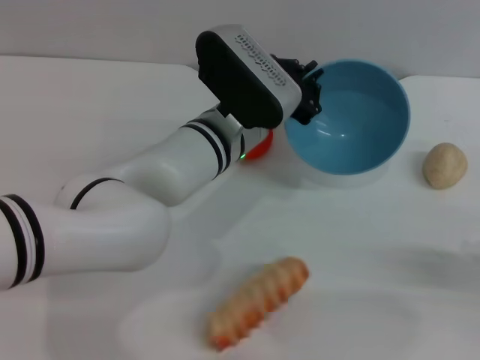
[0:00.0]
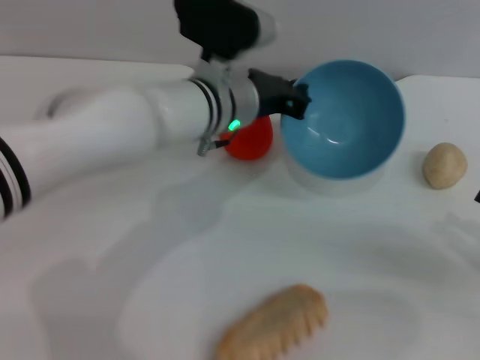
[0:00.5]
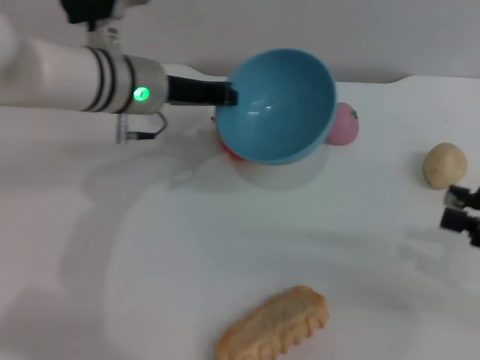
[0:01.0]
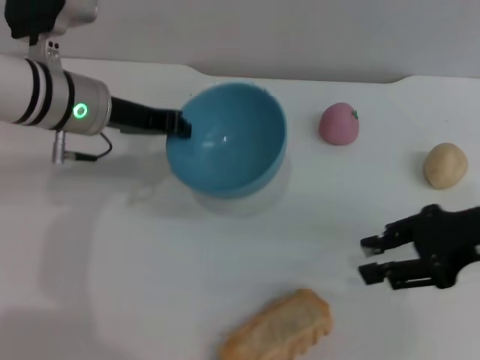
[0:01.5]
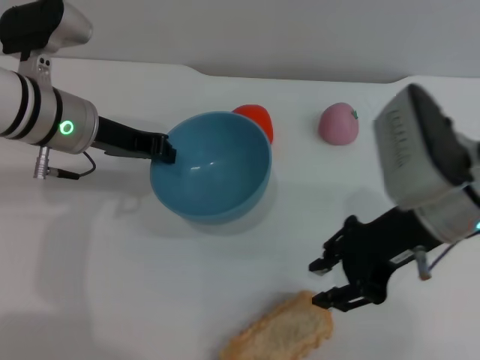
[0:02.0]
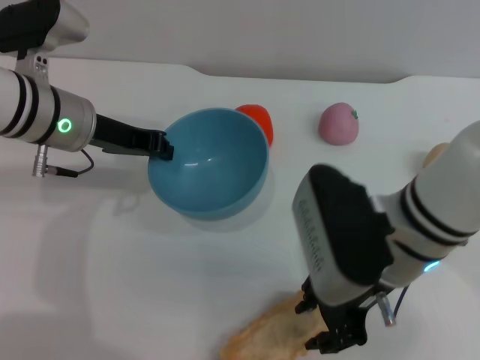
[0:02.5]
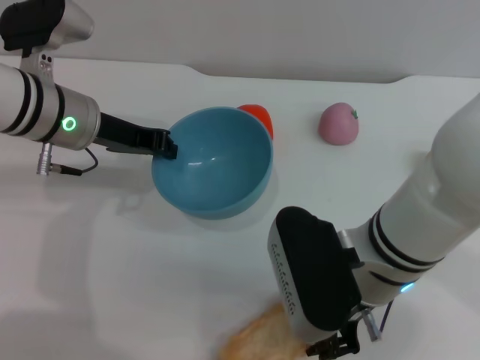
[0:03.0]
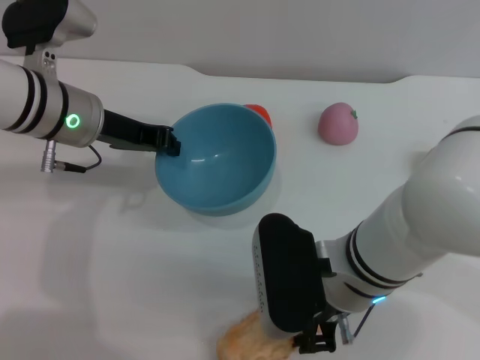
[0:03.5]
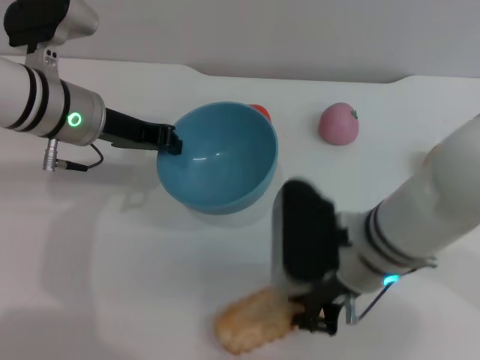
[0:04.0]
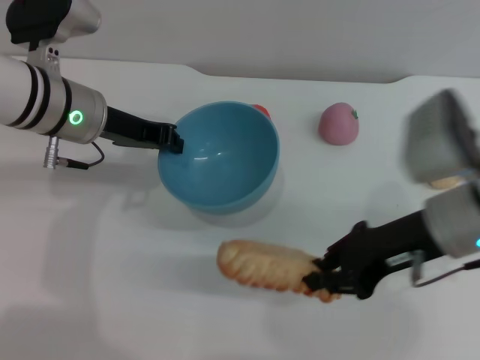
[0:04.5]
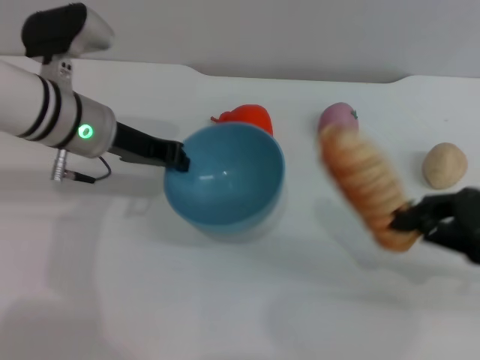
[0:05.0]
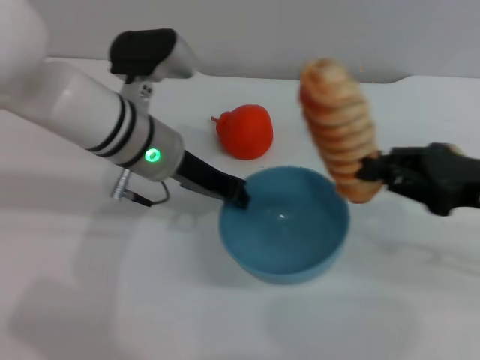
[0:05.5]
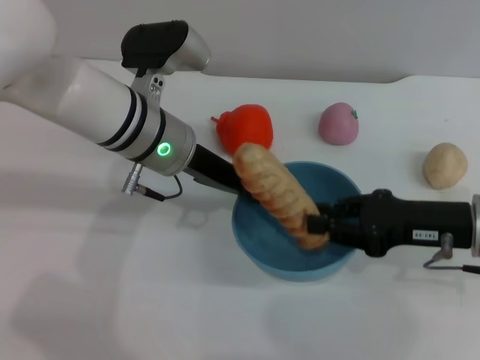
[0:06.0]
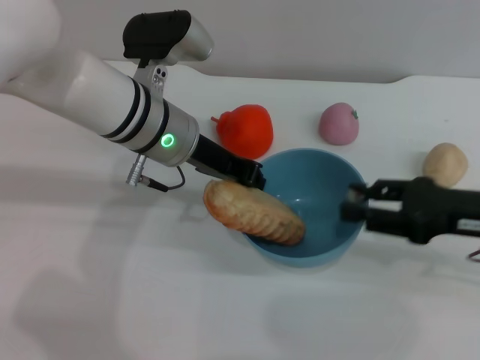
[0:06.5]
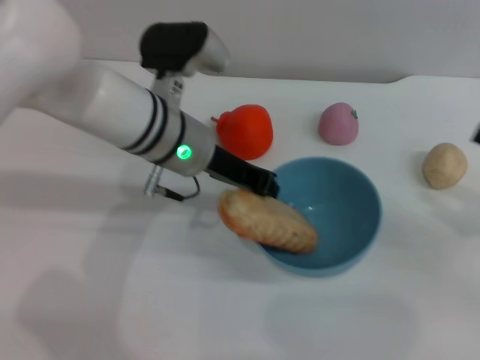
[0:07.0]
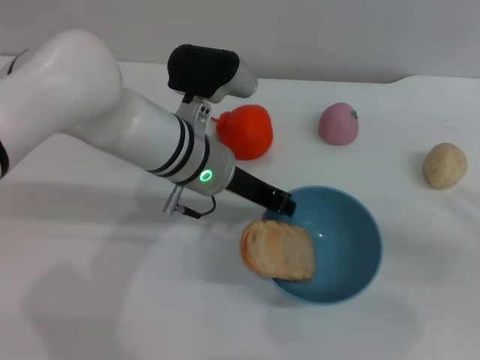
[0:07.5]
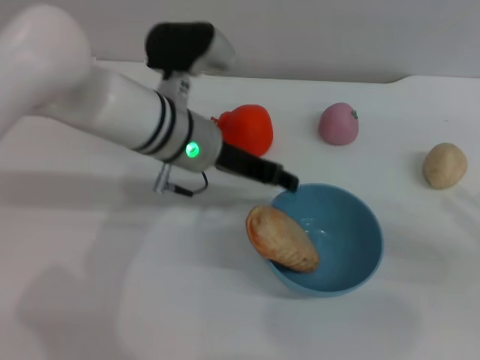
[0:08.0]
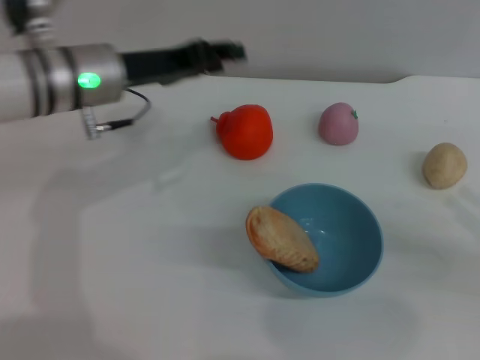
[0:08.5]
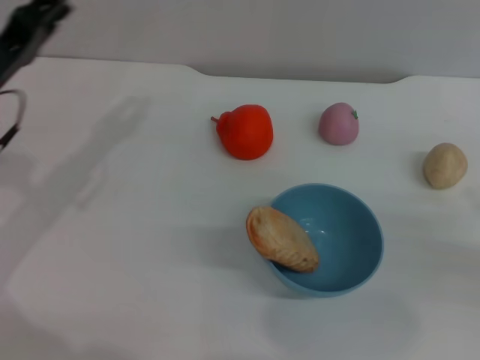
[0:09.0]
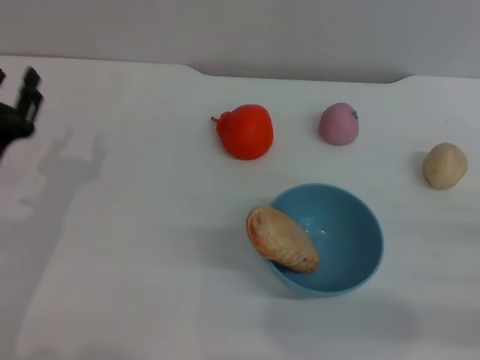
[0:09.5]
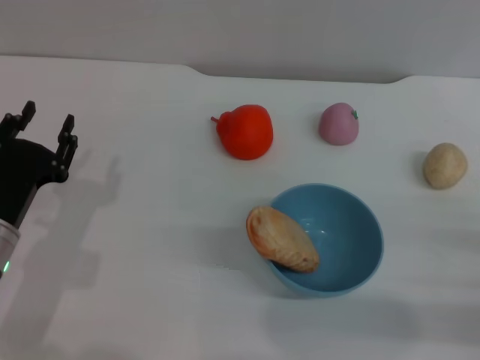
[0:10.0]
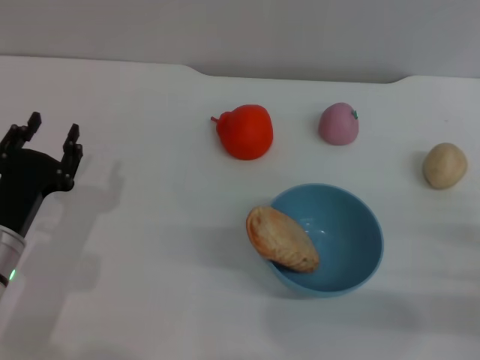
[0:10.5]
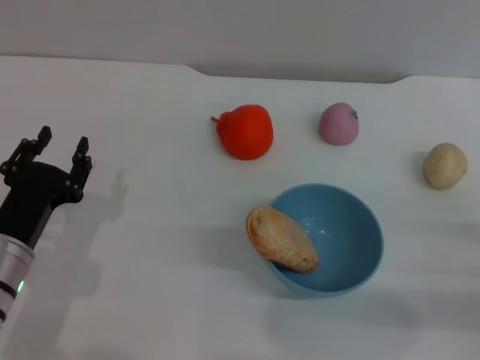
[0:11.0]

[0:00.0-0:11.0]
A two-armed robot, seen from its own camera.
Task of the whole recording: put the bread into the blue bowl and pour it out repeatedly.
Step, 0:00.0 to 0:04.0: Pick up the bread with the right gripper.
Step, 0:05.0 to 0:06.0: Place the bread into the bowl.
Step, 0:06.5 to 0:08.0: Place the bowl on the table.
0:00.0 to 0:02.0: The left gripper shifts approximately 15 cm to the left; the right gripper moves to the left and forward, roughly 25 cm.
0:02.0 to 0:03.5: The right gripper goes some 10 cm to the left and downward.
0:03.5 to 0:05.5: The left gripper shifts some 10 cm to the right; the right gripper heads to the right, covering roughly 20 cm, and closes its fingers.
0:05.5 to 0:07.5: The right gripper shifts approximately 10 cm to the right and backward, and opens up. The left gripper changes place by approximately 5 cm.
0:07.5 to 0:09.0: The left gripper is displaced to the left by about 20 cm, and opens.
0:09.0 to 0:11.0: The left gripper moves downward and backward, approximately 15 cm.

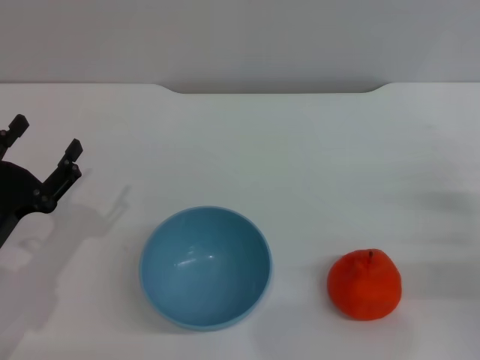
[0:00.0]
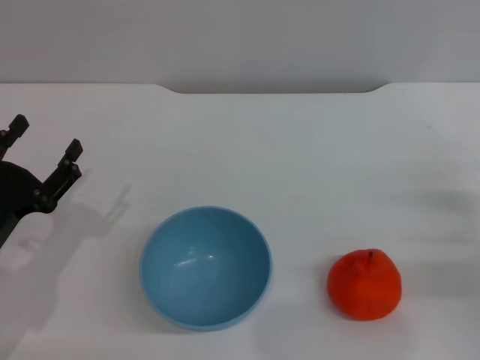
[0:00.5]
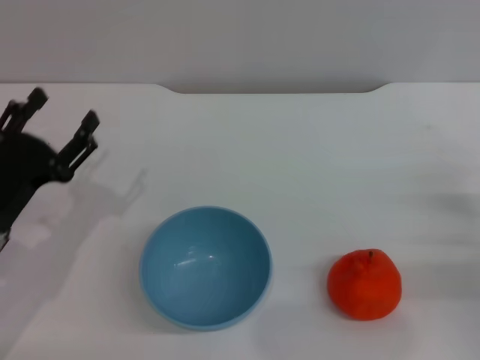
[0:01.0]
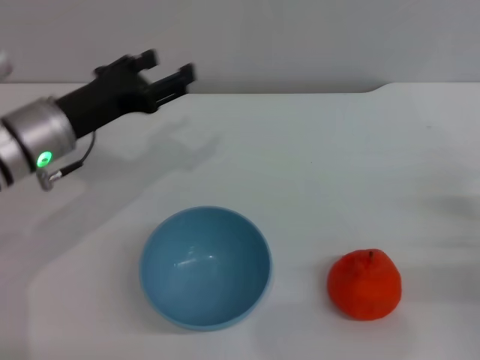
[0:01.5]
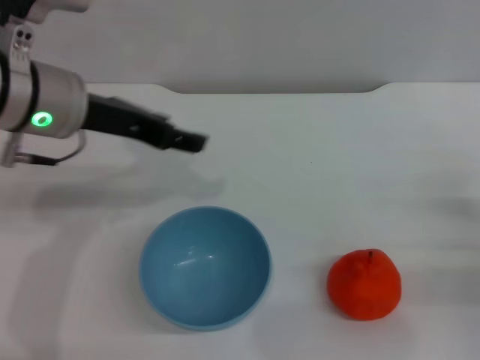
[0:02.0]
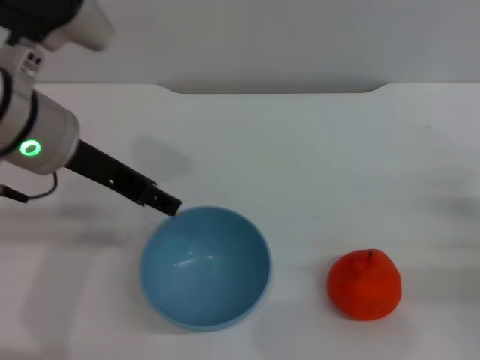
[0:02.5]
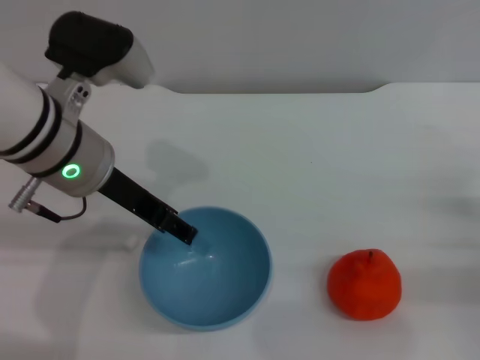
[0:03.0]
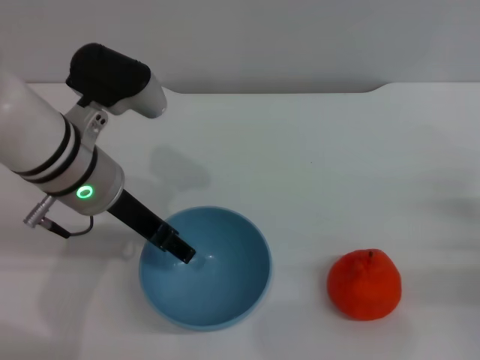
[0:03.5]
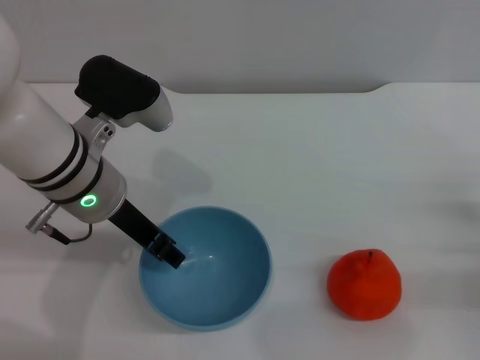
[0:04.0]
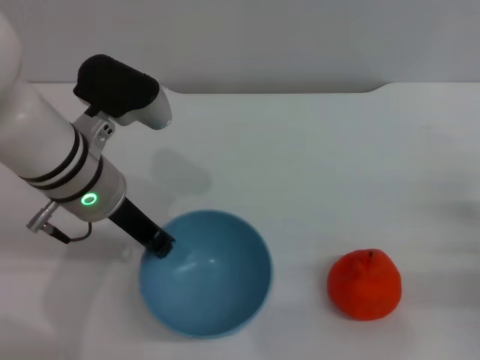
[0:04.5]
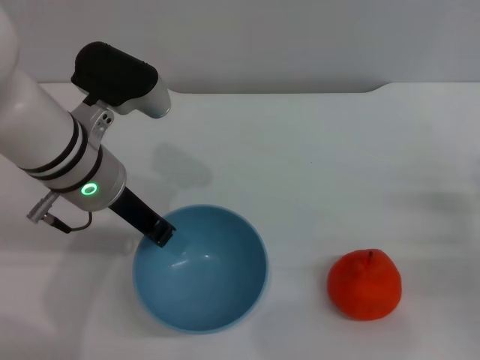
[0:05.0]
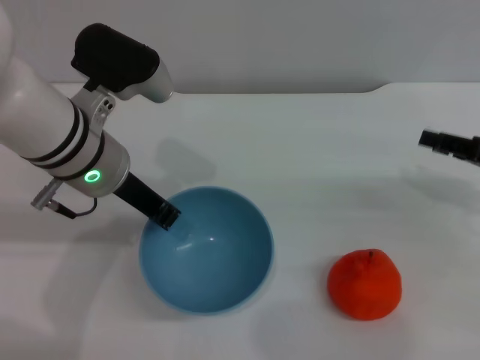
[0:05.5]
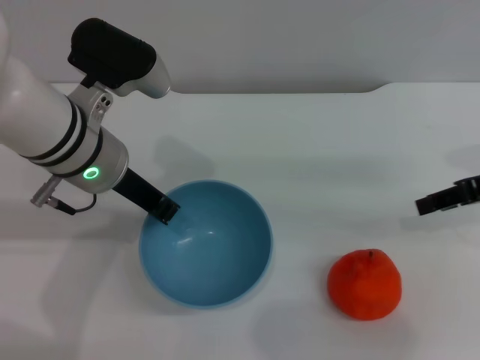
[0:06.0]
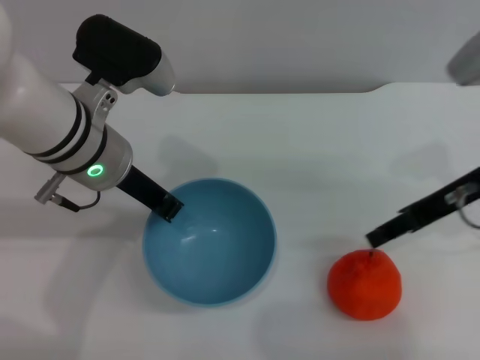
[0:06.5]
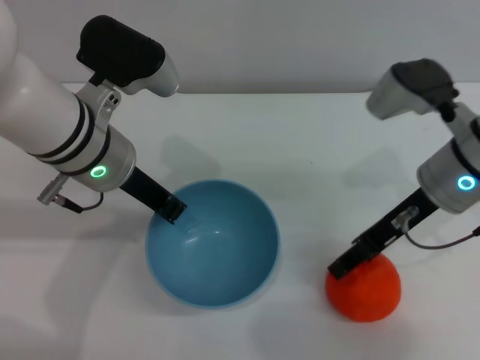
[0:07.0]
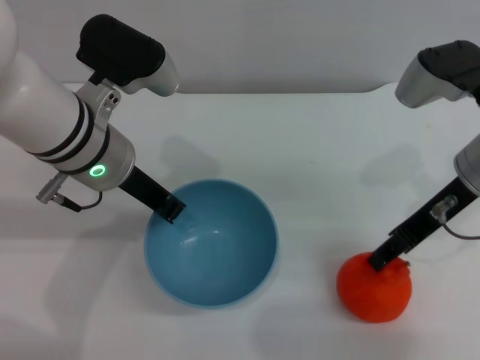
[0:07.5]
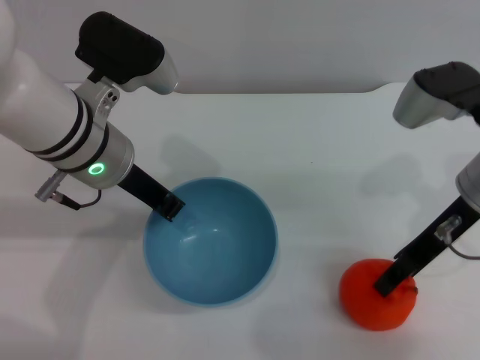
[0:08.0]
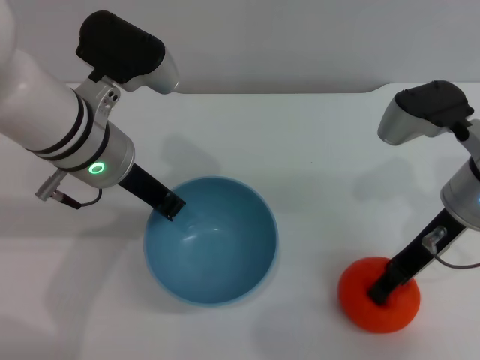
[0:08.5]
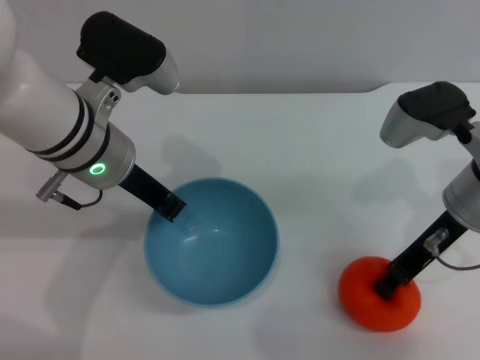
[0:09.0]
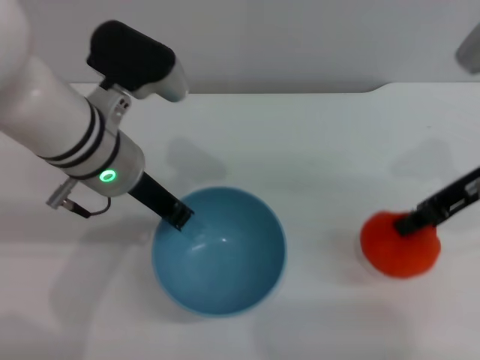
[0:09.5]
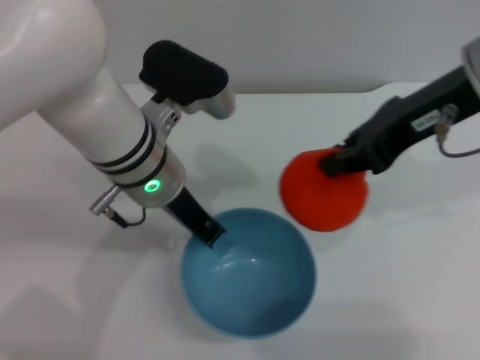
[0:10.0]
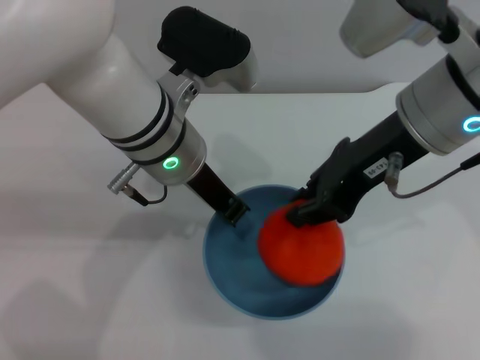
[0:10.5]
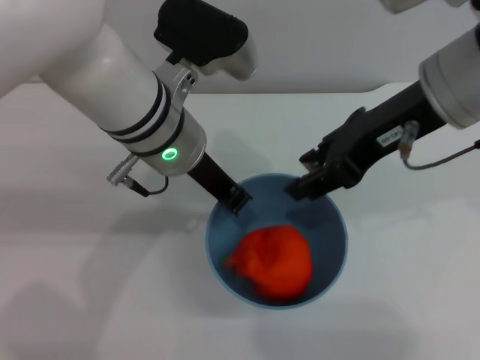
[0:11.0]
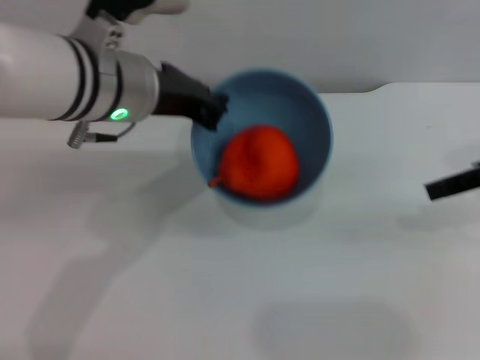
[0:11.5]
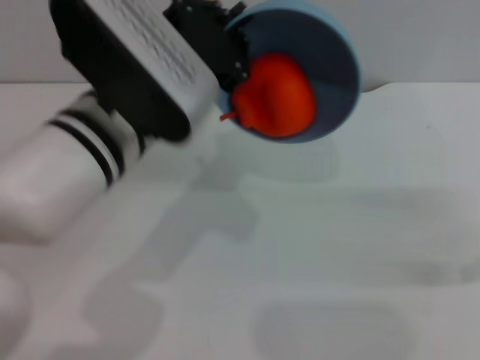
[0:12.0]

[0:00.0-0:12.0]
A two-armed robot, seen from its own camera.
Task of the whole recording: put the orange into the blue bowl and pour it out repeatedly.
Step, 0:00.0 to 0:06.0: Pick up the bowl with the left gripper.
Step, 0:06.5 to 0:09.5: Pick up the orange with the right gripper.
Step, 0:10.0 to 0:11.0: Place the orange into the bowl.
0:00.0 to 0:02.0: The left gripper shifts some 25 cm upward, forward and to the right.
0:02.0 to 0:04.0: The left gripper is displaced downward by roughly 5 cm.
0:04.0 to 0:06.0: The left gripper closes up. The right gripper shifts approximately 20 cm upward and forward.
0:06.0 to 0:08.0: The right gripper is displaced to the left by about 10 cm.
0:08.0 to 0:10.0: The right gripper travels upward by roughly 10 cm, and closes its fingers.
0:10.0 to 0:12.0: The right gripper is displaced to the right and downward by about 20 cm, and opens its fingers. Meanwhile the left gripper moves some 5 cm.

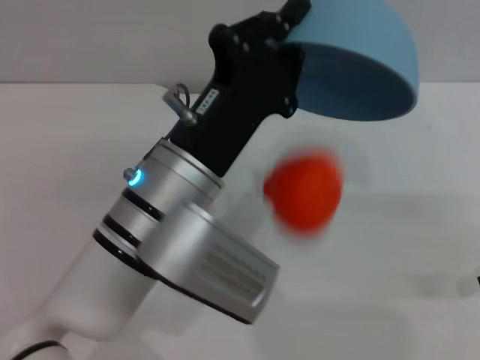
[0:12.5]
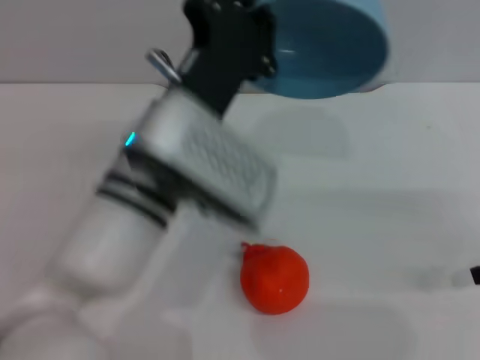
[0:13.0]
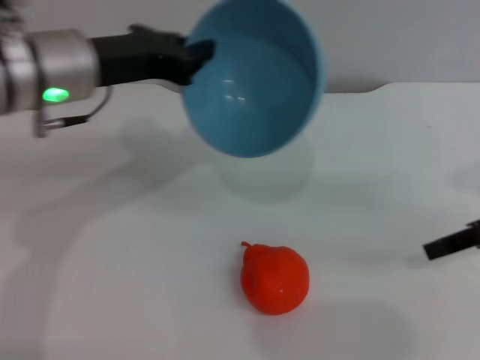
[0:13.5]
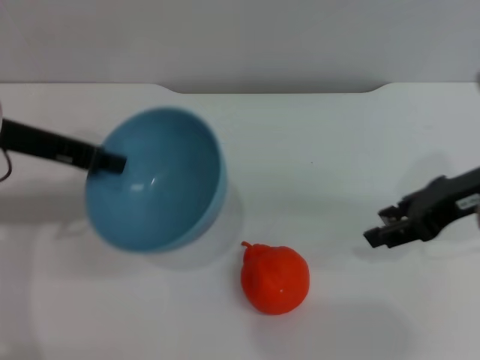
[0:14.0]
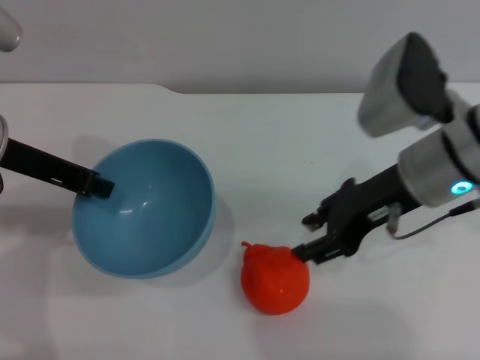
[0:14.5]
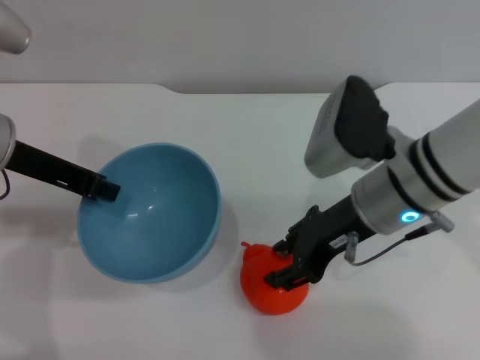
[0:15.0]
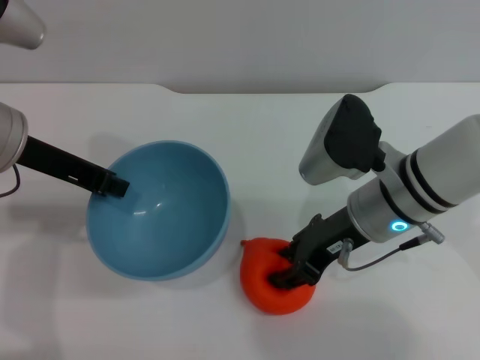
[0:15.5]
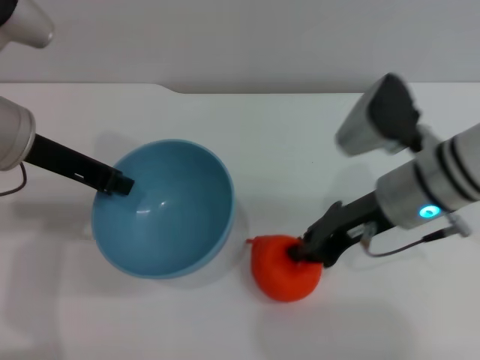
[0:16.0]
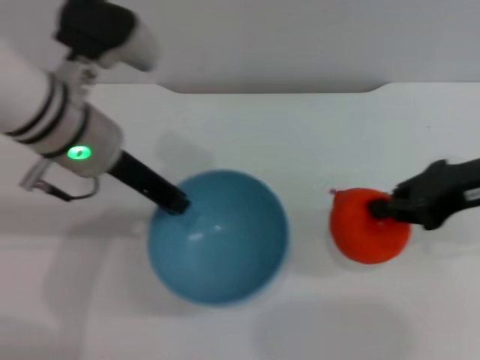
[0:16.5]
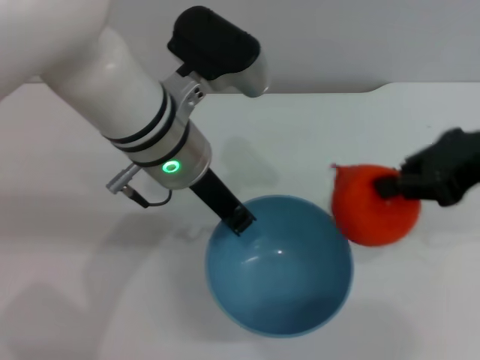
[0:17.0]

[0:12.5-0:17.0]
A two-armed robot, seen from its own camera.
Task of the whole recording: put the orange into the blue bowl and pour it out repeatedly.
Step, 0:13.5 to 0:16.0: Pick up the orange with the right gripper.
0:12.5 to 0:14.5: The right gripper heads to the left, covering roughly 20 cm. The left gripper heads to the left and forward, covering approximately 20 cm.
0:14.5 to 0:17.0: The right gripper travels to the right and upward by some 10 cm, and closes. The left gripper is displaced to the right by roughly 15 cm.
